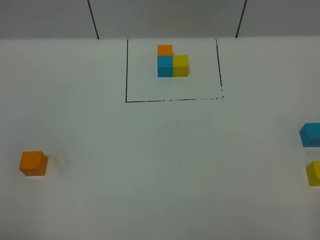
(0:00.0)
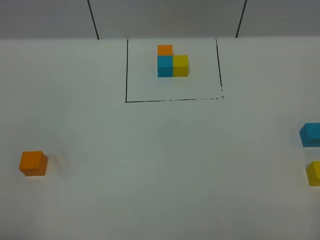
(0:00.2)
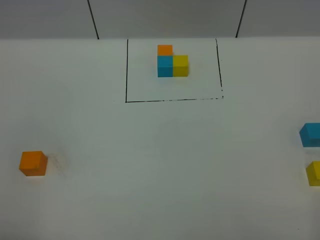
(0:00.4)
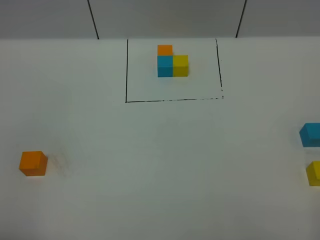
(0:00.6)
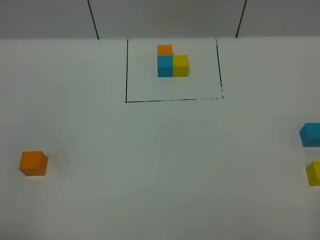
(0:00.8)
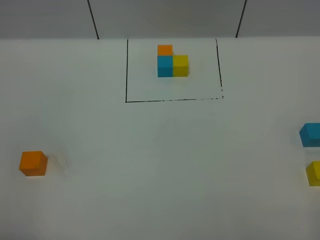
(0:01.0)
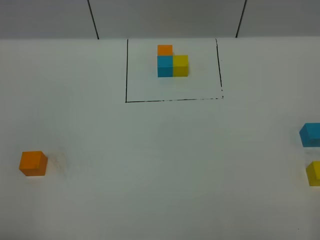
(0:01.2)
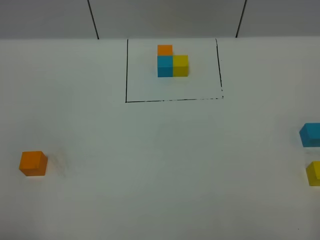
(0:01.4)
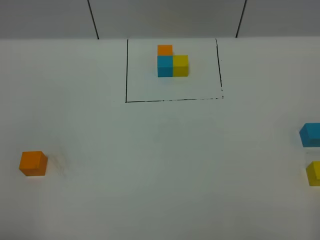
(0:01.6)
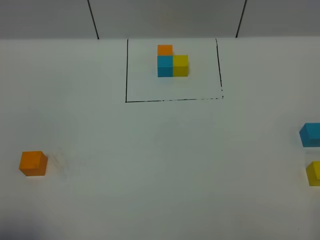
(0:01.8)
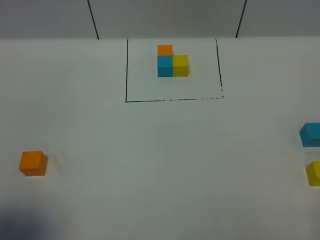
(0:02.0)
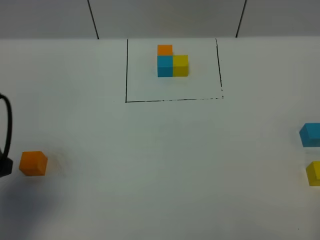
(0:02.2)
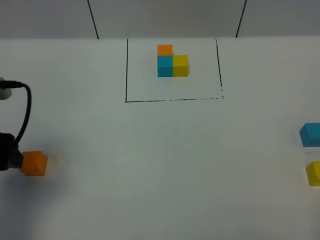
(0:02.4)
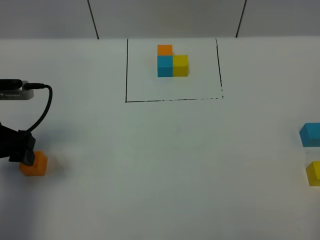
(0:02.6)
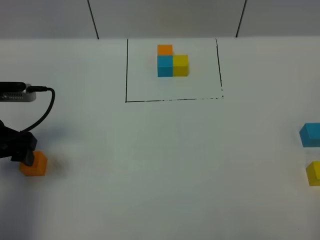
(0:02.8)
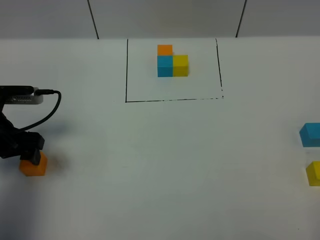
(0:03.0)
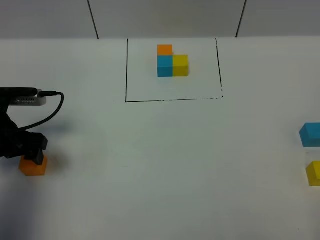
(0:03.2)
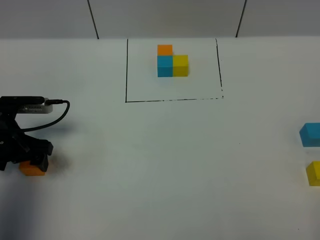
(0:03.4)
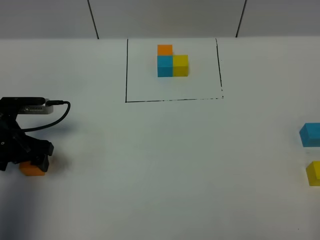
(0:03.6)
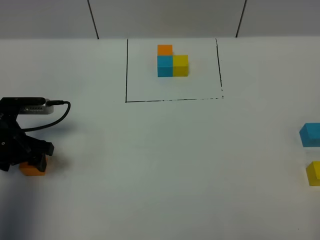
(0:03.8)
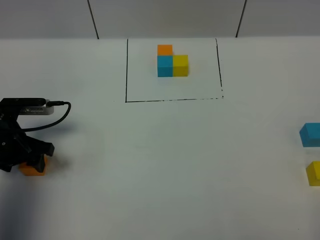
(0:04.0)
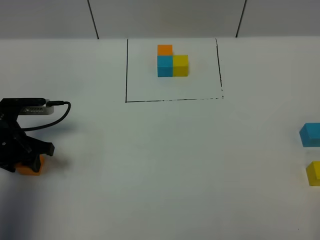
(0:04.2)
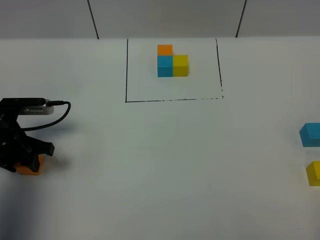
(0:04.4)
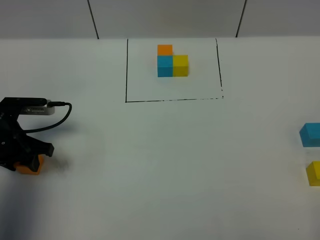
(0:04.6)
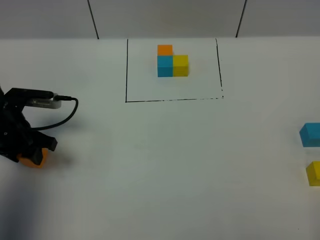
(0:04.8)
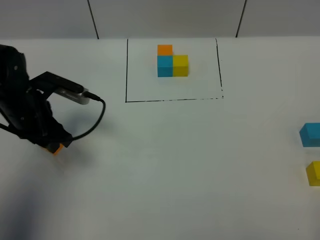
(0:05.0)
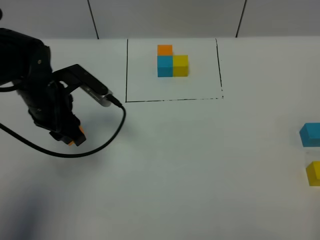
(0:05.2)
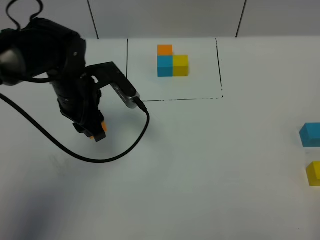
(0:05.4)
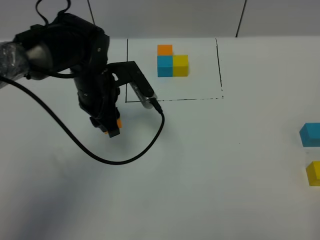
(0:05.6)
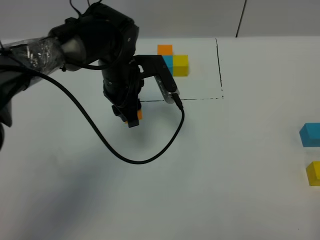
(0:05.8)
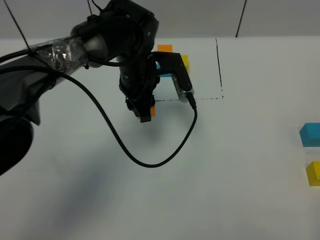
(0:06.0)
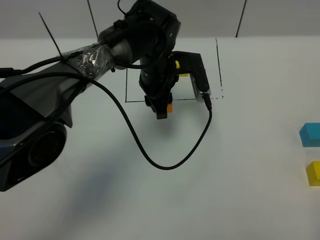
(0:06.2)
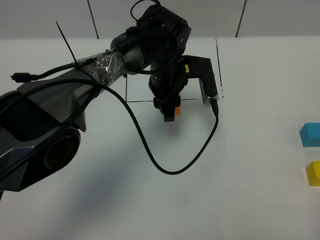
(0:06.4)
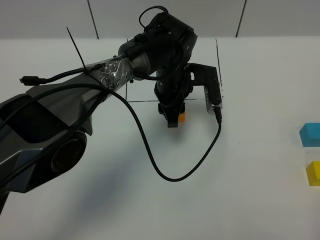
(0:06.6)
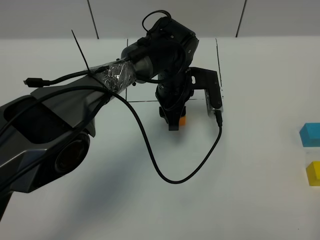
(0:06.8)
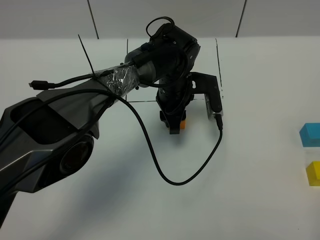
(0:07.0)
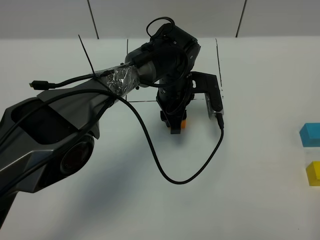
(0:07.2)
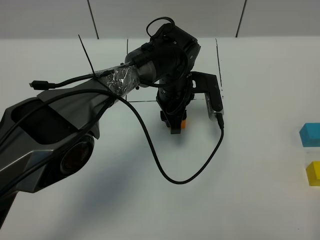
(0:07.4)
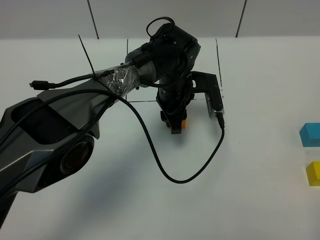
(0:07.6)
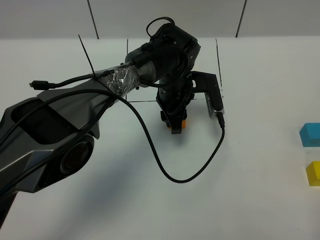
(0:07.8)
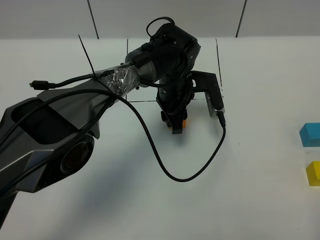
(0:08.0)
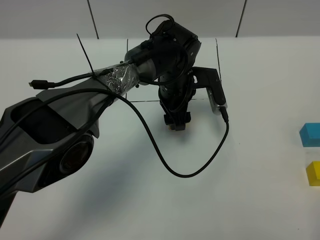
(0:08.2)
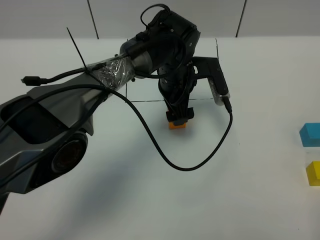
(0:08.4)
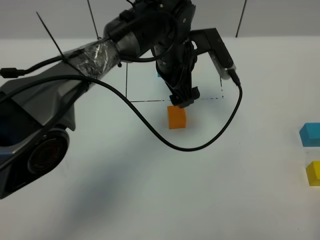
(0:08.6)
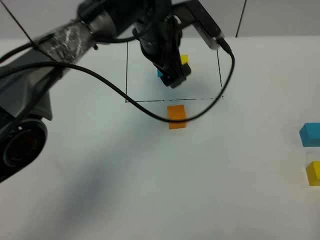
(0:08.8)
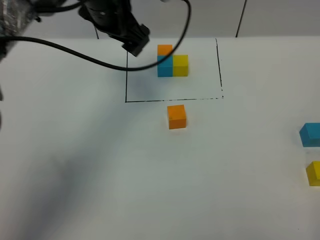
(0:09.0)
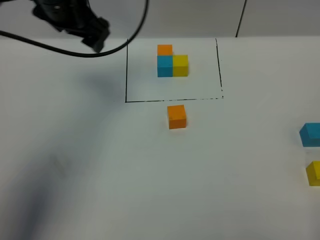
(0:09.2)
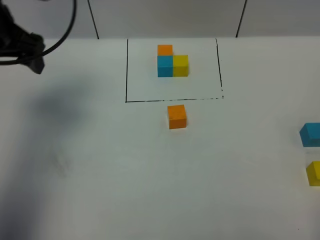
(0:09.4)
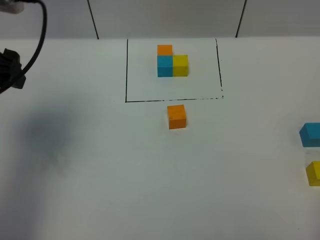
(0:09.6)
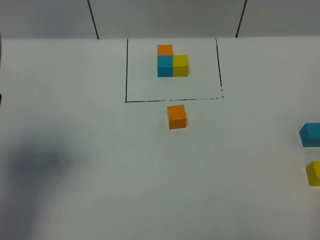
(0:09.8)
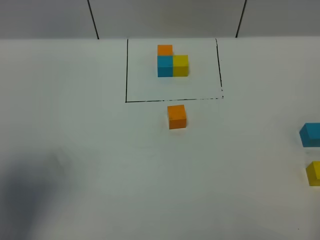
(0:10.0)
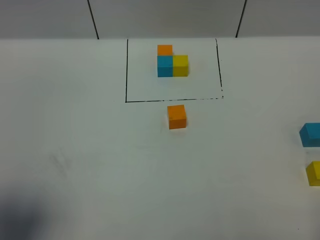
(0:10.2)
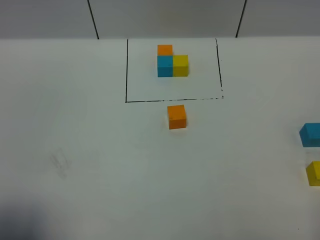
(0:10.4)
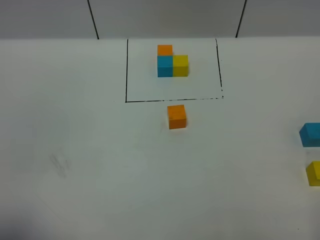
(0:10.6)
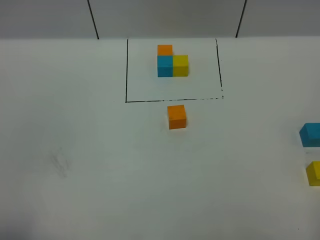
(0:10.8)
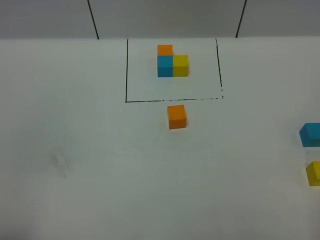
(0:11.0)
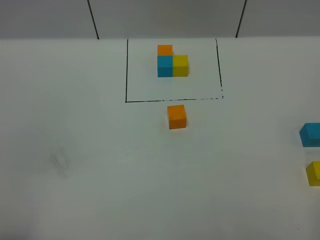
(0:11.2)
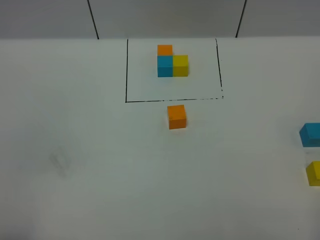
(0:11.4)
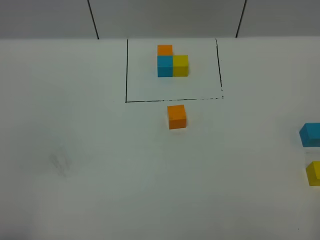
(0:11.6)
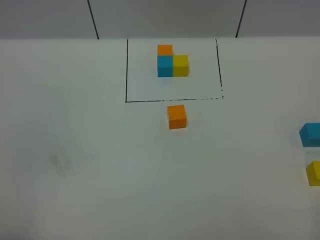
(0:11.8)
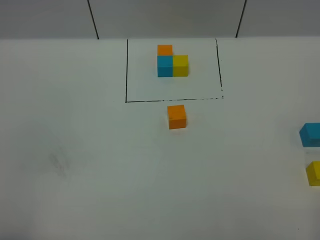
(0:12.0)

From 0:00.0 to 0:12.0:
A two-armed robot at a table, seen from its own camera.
Task of the whole recording: According to the building block template in front, assemble the scattered blocks together.
Step, from 0:00.0 to 0:08.0: Put the orange build block in the center of the table.
From 0:00.0 to 0:01.6: Both grippers stay about where they are.
From 0:01.6 to 0:03.0: The left gripper moves forward, some 30 cm.
From 0:03.0 to 0:04.4: The left gripper closes up.
From 0:04.4 to 0:06.0: The left gripper is displaced to the right and forward by some 25 cm.
From 0:06.0 to 0:07.6: The left gripper goes approximately 10 cm to the right and downward.
From 0:07.6 to 0:09.0: The left gripper moves upward and to the left, some 20 cm, and opens its fingers.
From 0:09.0 to 0:10.4: The left gripper goes about 40 cm backward and to the left.
From 0:10.4 to 0:12.0: The left gripper moves backward and downward, approximately 10 cm.

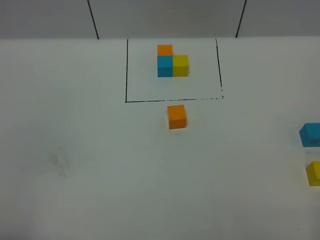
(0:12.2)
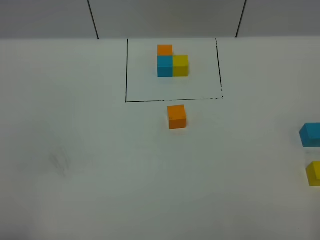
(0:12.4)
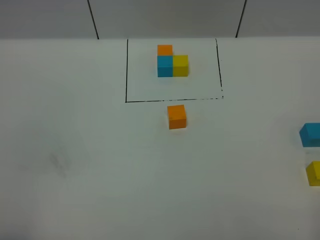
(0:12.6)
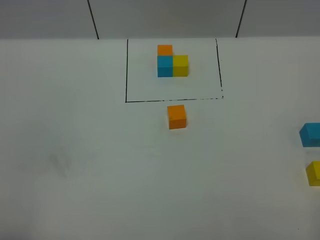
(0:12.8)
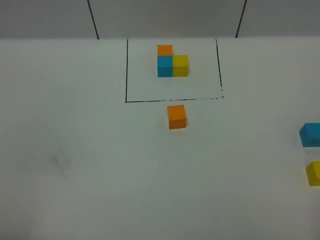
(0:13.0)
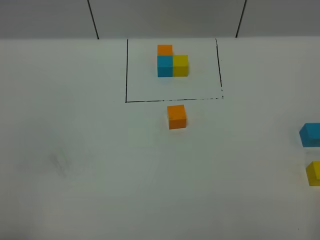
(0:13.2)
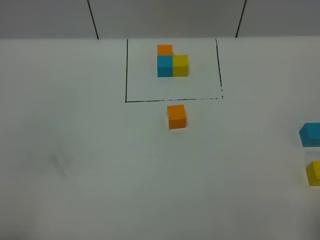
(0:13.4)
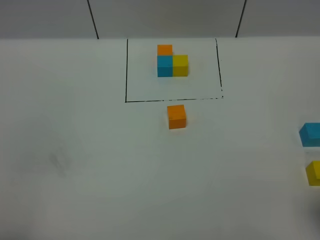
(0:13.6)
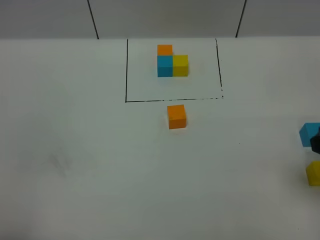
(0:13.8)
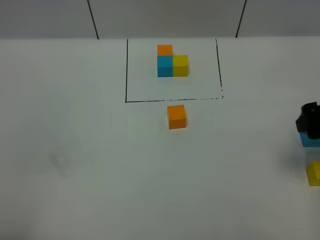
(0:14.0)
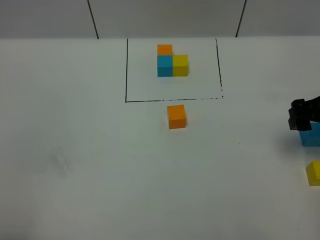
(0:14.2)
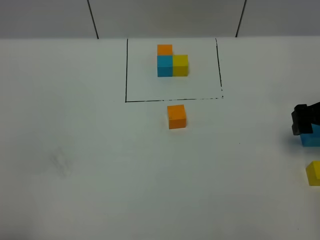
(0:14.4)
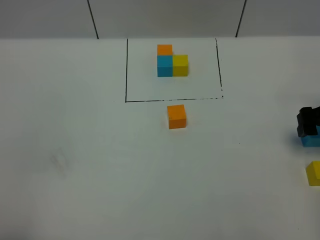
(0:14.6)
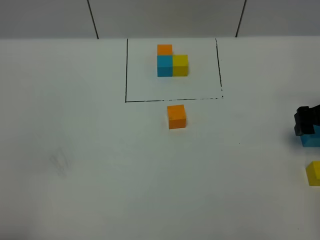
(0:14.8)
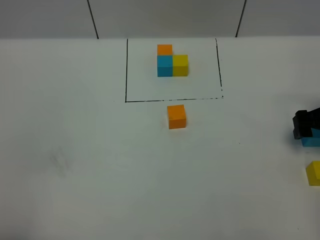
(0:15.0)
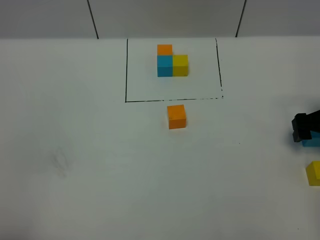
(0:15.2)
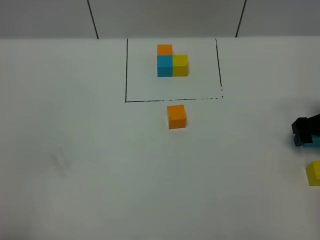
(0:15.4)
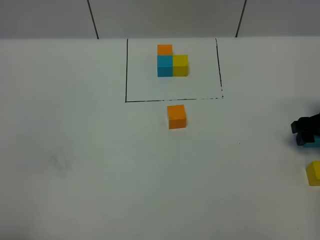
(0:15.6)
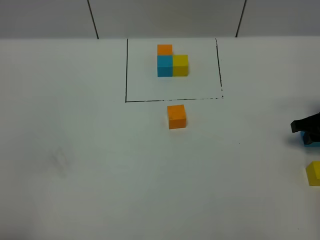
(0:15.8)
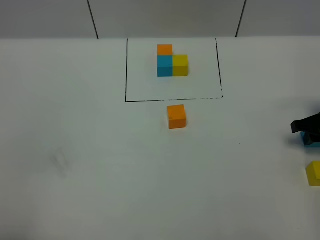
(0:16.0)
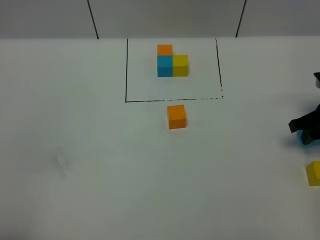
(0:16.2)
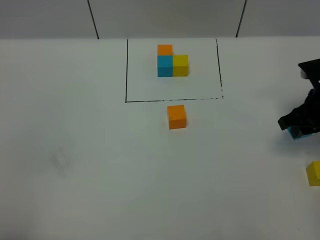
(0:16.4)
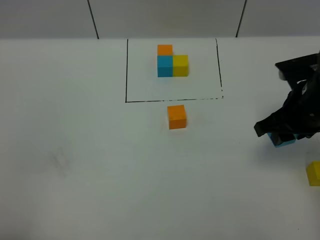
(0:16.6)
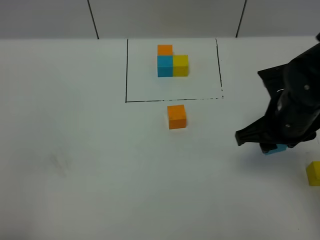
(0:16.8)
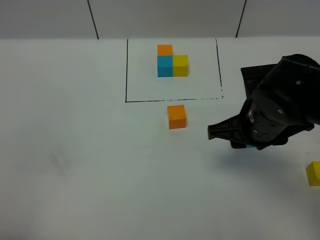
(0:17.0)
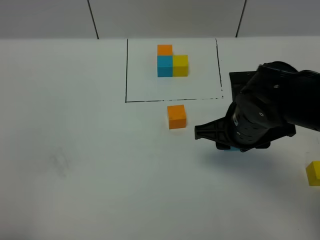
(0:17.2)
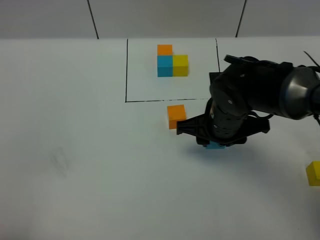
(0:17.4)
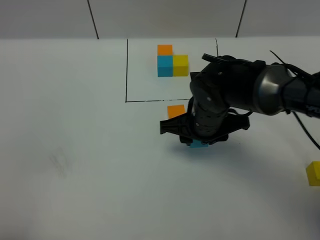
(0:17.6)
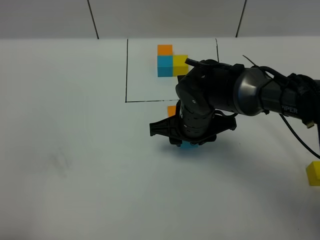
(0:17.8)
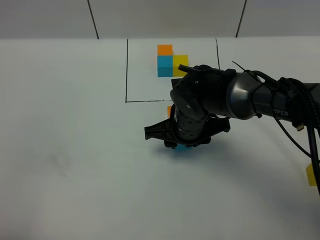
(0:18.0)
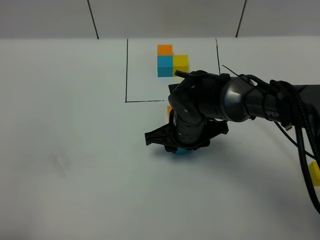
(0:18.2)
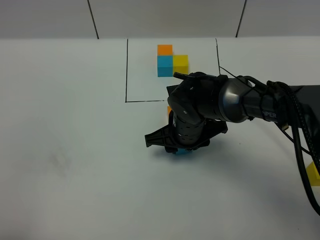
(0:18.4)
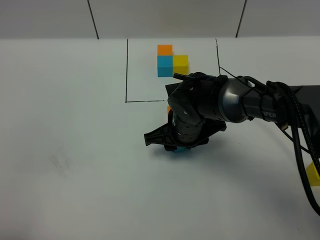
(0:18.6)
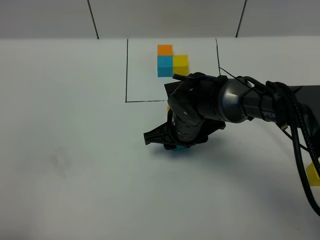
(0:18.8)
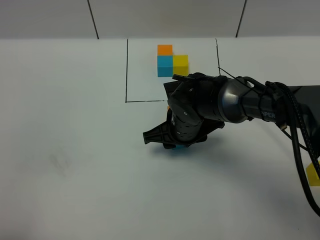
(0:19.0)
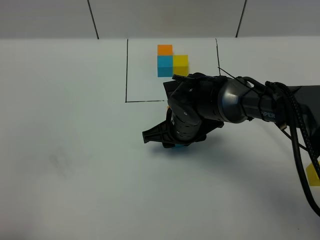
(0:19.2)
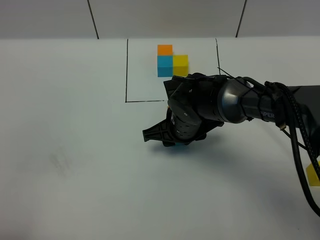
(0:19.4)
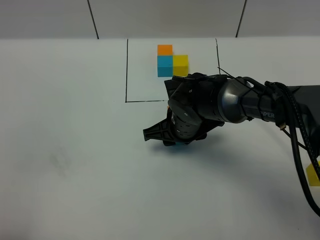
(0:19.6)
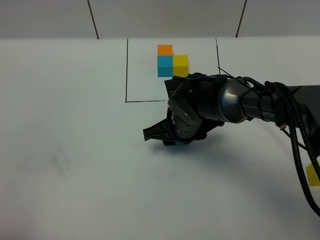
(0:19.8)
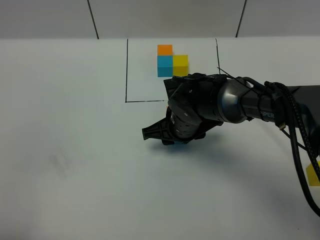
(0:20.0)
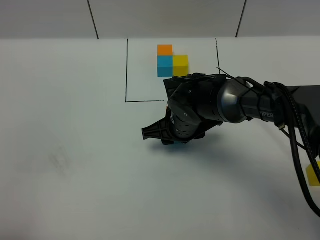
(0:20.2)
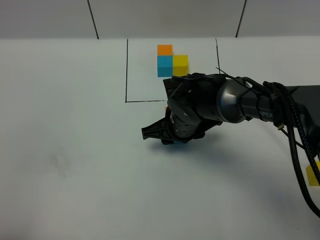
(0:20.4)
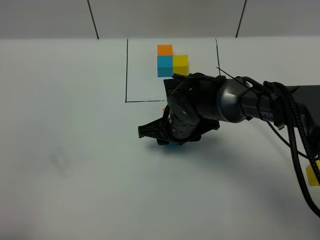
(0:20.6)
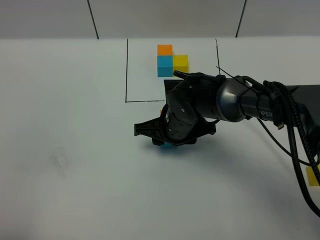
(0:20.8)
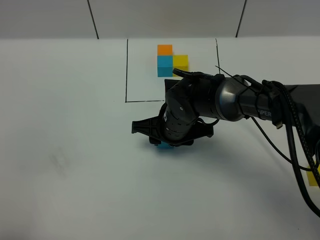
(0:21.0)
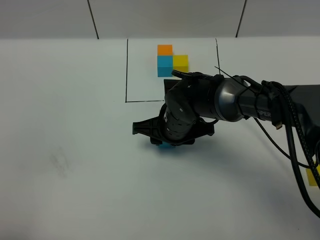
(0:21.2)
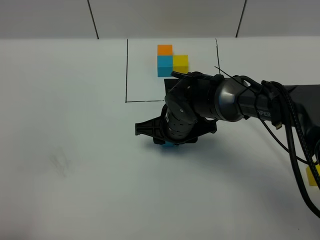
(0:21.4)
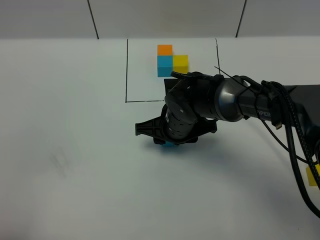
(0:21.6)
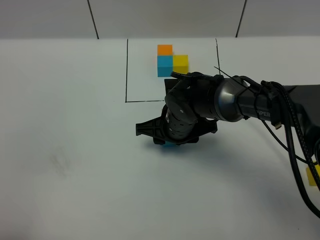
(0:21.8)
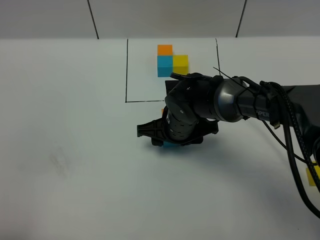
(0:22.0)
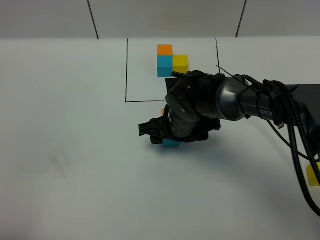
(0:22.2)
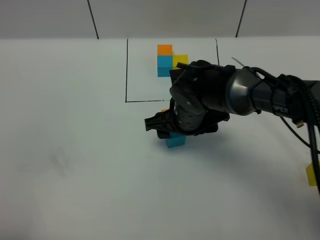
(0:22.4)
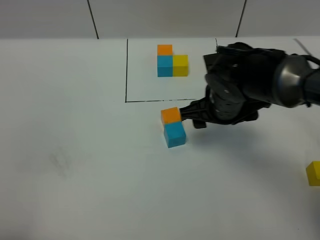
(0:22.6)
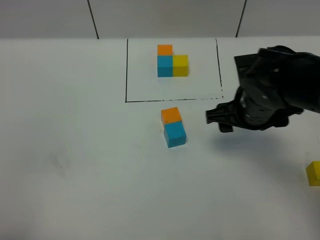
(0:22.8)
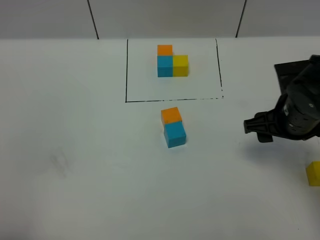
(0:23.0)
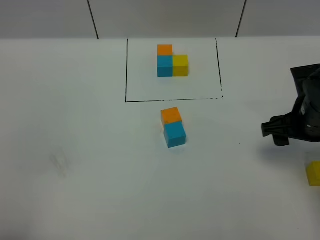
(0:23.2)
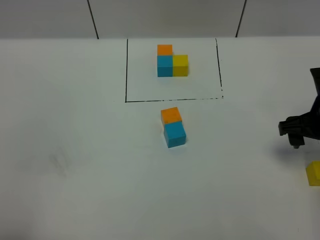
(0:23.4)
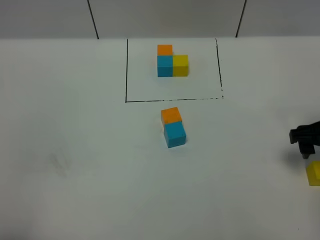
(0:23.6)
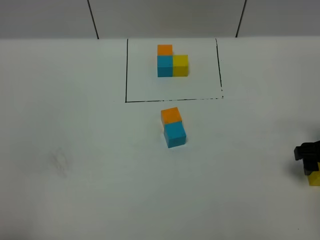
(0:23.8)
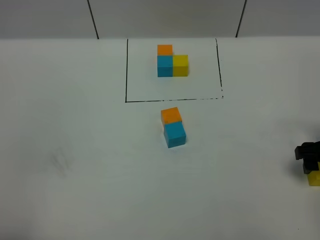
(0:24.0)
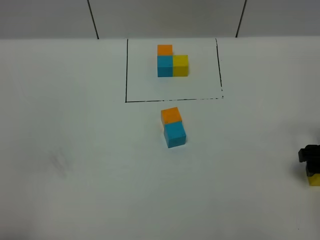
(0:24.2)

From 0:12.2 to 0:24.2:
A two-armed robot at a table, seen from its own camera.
Task of the whole recording: According to the building block template in front, assemble the scattered blocks together.
Step, from 0:12.2 to 0:21.8: Put the blue build block on the behind of the orange build block.
From 0:12.2 to 0:13.8: The right gripper heads forward, covering approximately 20 cm.
From 0:13.8 to 0:15.2: The right gripper heads downward and forward, covering approximately 20 cm.
From 0:15.2 to 0:16.6: The right gripper shifts about 15 cm to the left and upward, and closes up.
From 0:16.6 to 0:18.2: The right gripper travels to the left and downward by some 20 cm.
From 0:18.2 to 0:21.2: There are only small adjustments of the grippers.
From 0:21.2 to 0:22.6: The right gripper moves to the right and upward, some 10 cm, and opens.
From 0:22.6 to 0:24.2: The right gripper heads to the right, covering roughly 20 cm.
